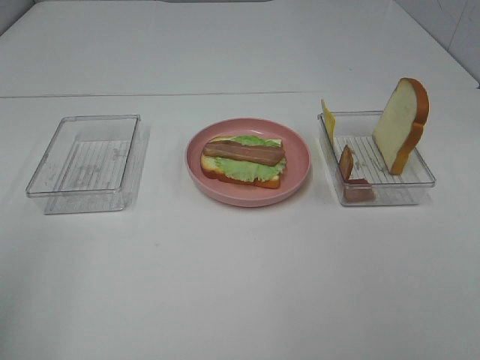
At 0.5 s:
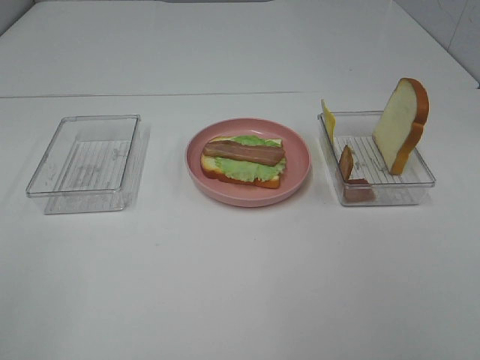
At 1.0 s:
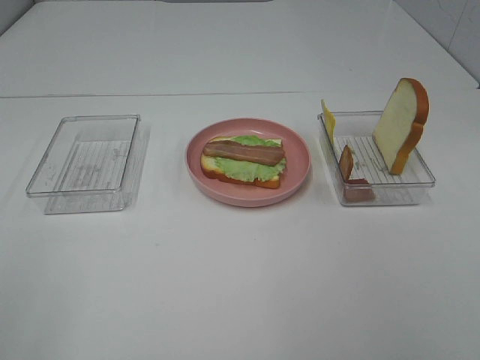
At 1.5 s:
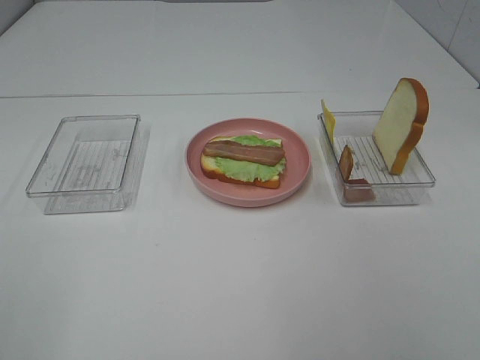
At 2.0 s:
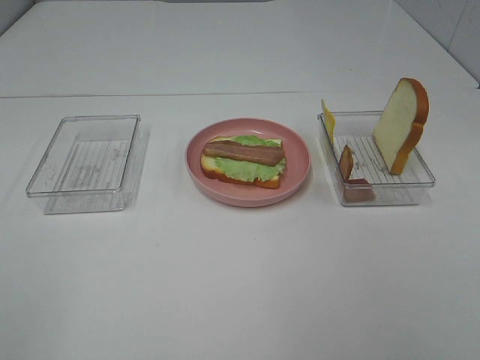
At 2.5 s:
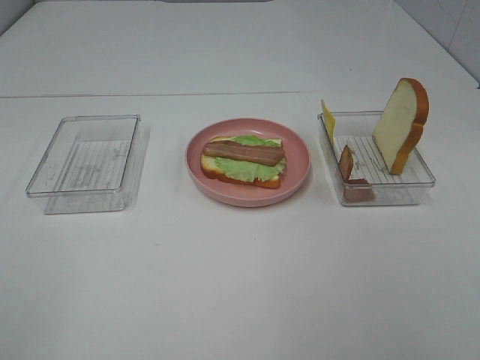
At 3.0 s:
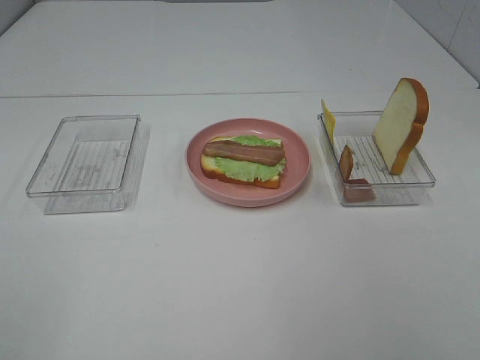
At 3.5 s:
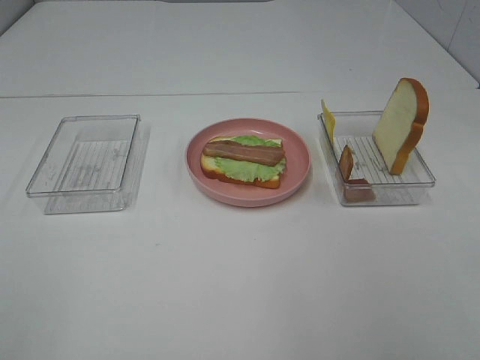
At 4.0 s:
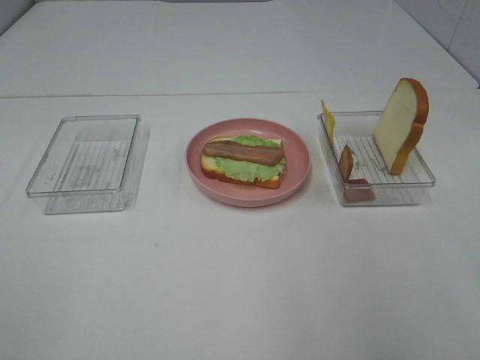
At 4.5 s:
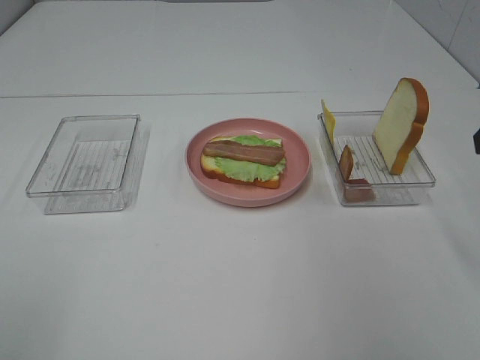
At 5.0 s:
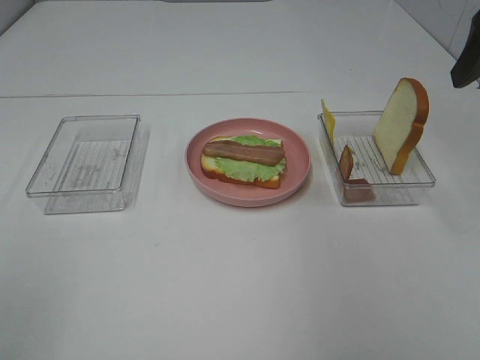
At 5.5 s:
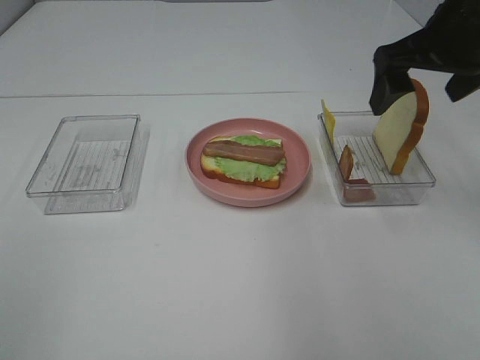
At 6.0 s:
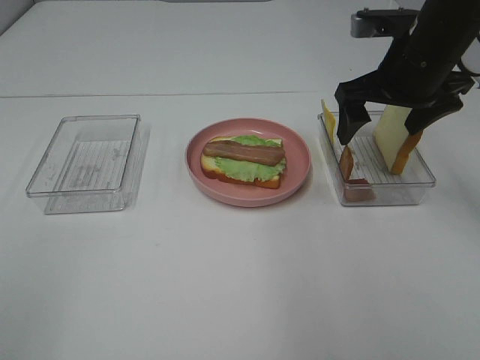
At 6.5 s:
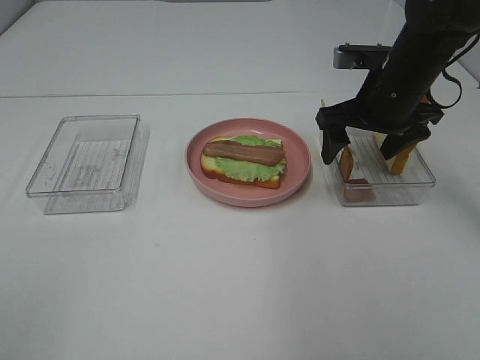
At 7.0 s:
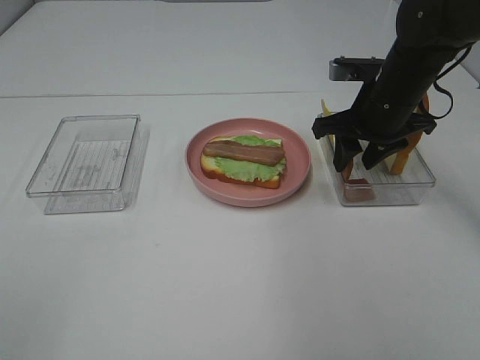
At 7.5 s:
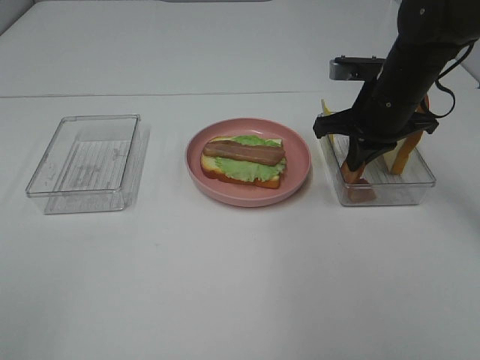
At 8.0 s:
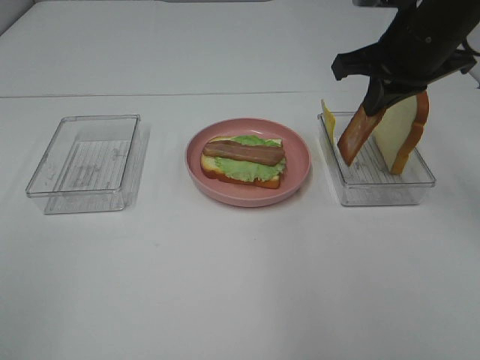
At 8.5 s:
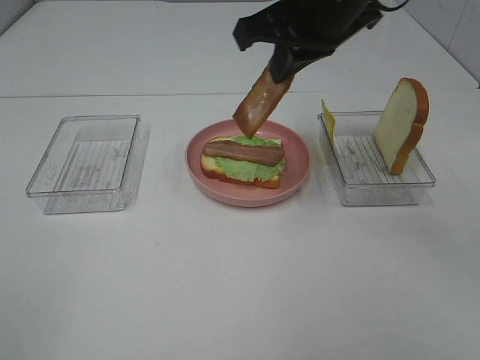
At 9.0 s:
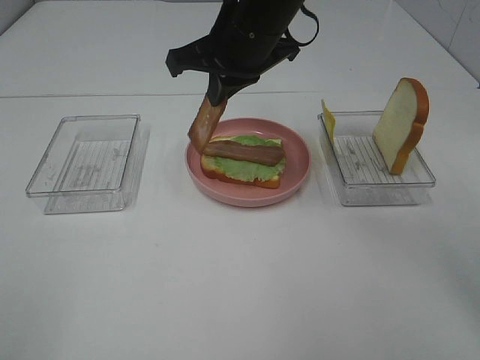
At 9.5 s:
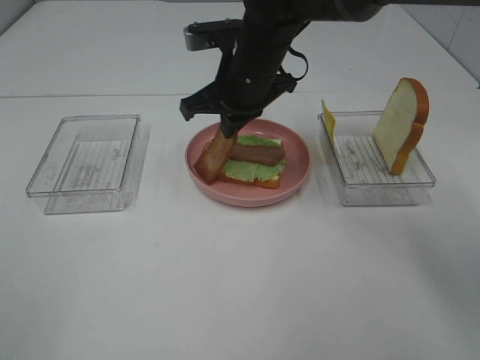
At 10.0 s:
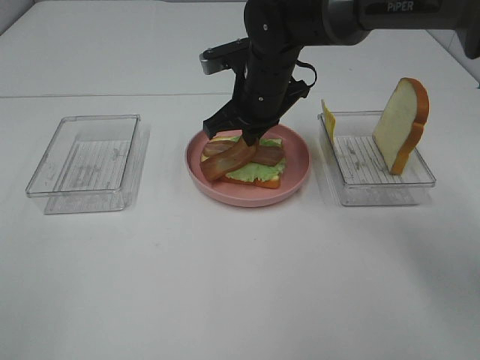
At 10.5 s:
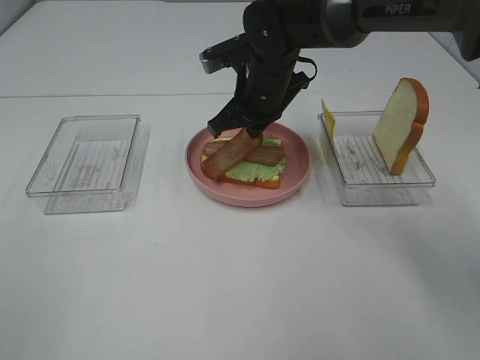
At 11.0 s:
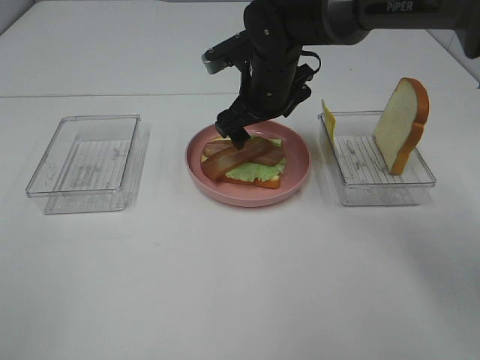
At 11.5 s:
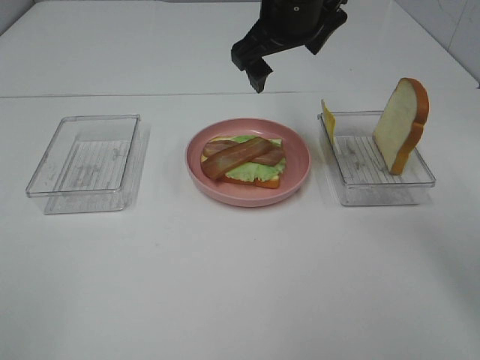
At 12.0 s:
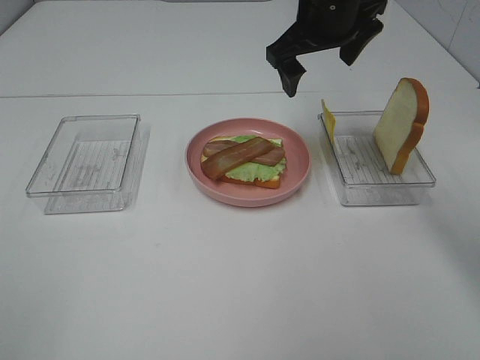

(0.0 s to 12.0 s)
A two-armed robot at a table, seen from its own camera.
Task of the whole recording: Make sandwiches.
Step, 0.0 s - 7.0 s: Right hand:grab the bacon.
Step, 7.5 s - 11.0 s: Right hand:place bacon on bacon.
4.0 s - 6.0 s: The right gripper is displaced forward by about 25 cm.
6.0 s - 8.0 s: The right gripper closes up.
8.0 s - 10.0 s: The right gripper goes approximately 20 cm to the left, downward and forward.
10.0 s - 12.0 s: The right gripper shifts roughly 15 cm upward and to the right, and opens its fingers.

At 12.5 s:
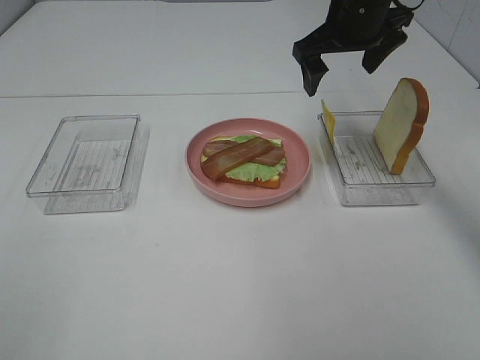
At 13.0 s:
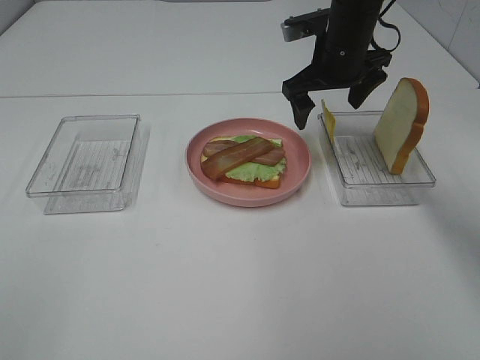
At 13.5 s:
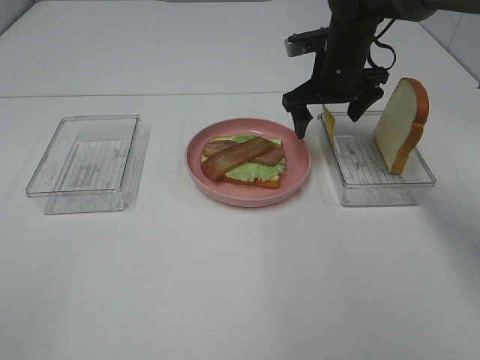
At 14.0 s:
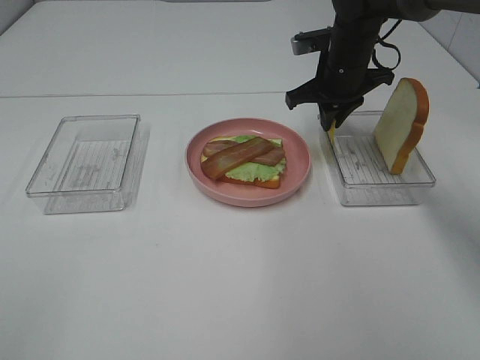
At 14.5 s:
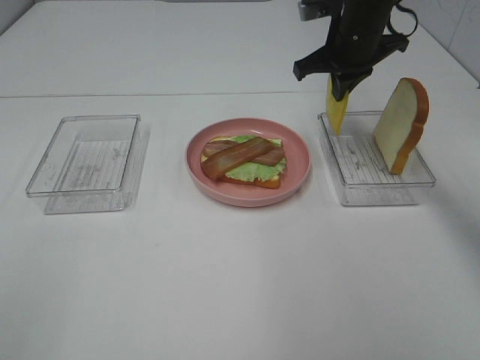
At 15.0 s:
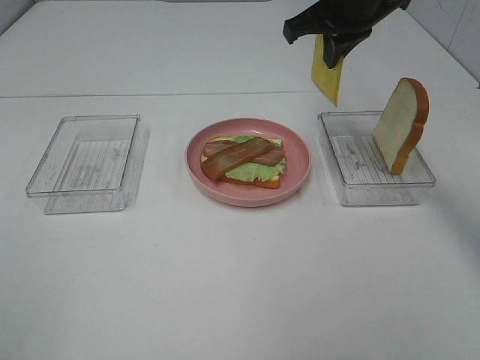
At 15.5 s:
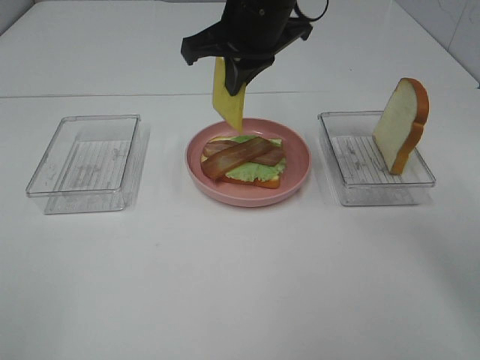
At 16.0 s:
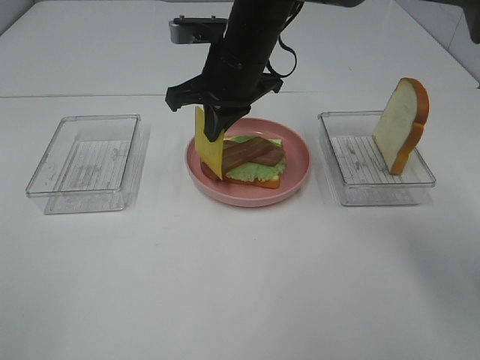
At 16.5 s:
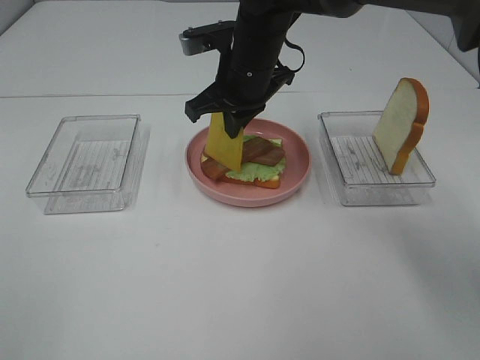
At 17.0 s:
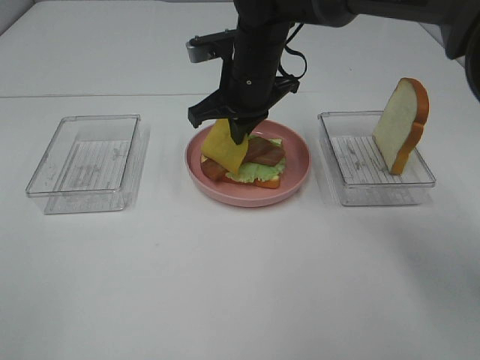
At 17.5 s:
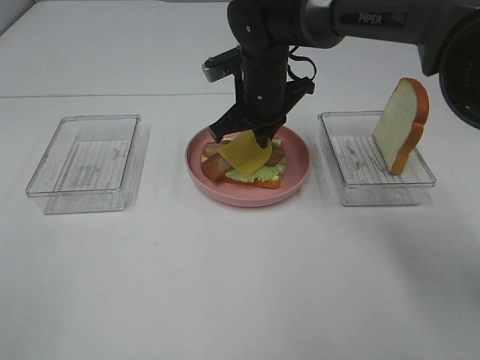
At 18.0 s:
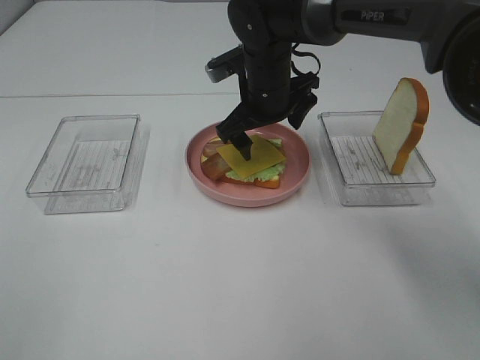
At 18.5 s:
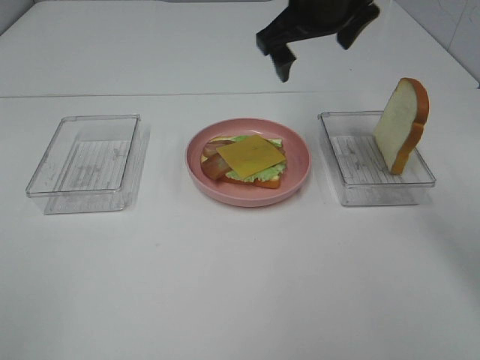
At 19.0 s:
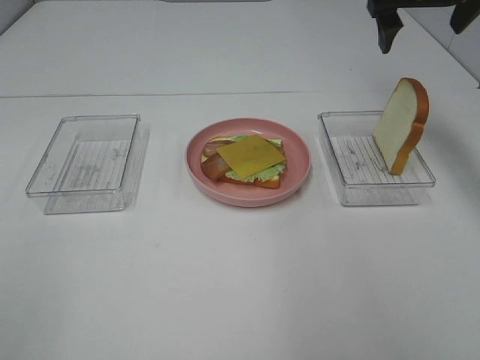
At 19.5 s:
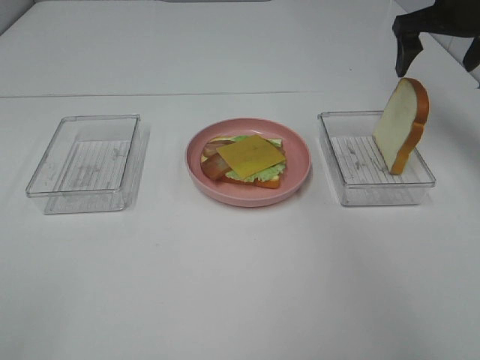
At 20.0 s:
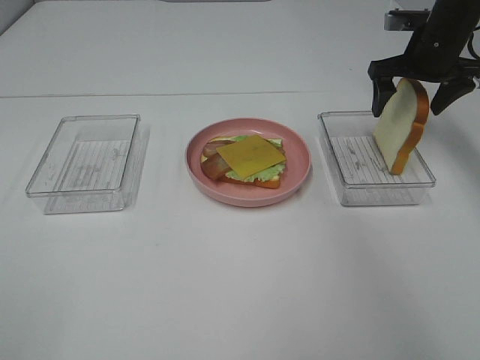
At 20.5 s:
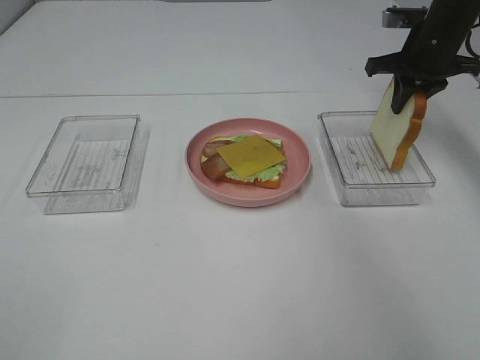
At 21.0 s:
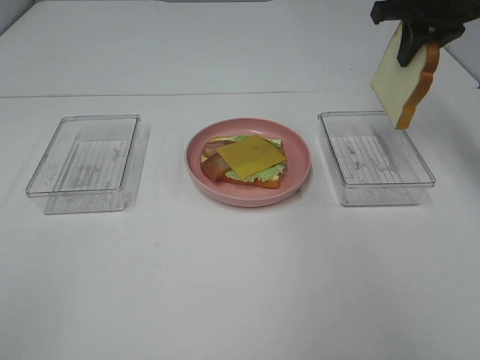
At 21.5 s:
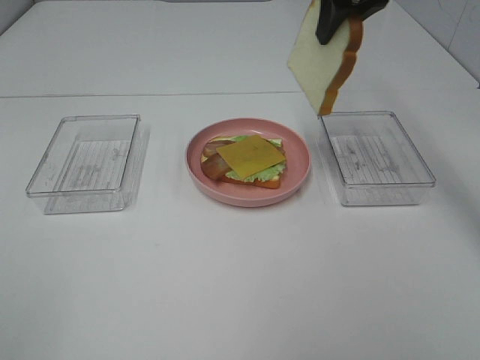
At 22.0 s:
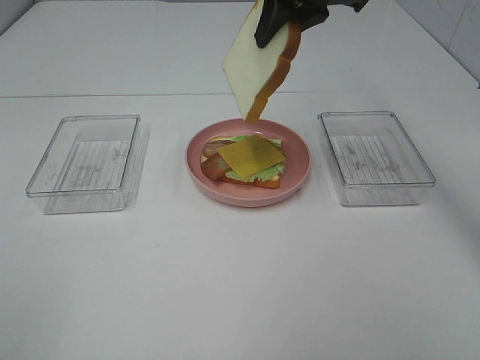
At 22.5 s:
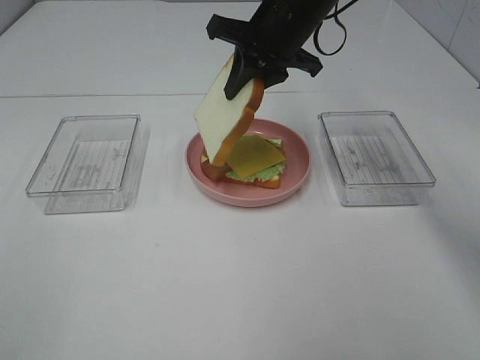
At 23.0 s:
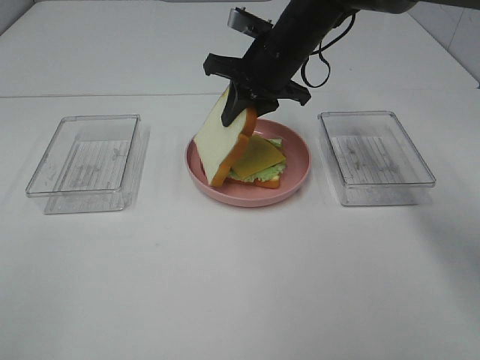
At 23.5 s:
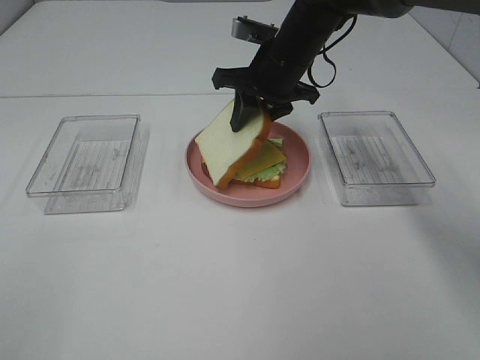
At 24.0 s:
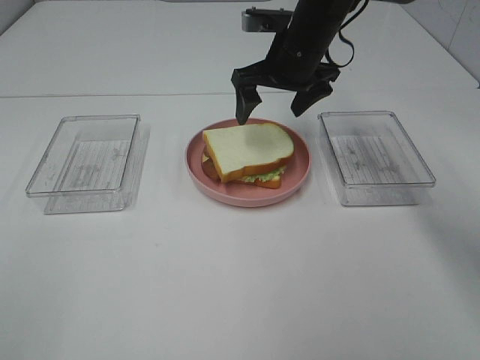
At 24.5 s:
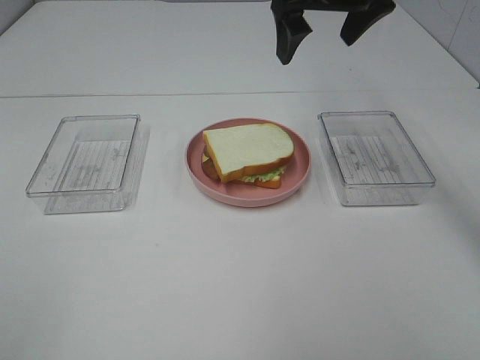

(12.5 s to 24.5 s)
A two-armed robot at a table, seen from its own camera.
Task of the whole recording: Make sandwiches.
Step, 14.5 s - 18.0 s: Right hand:place the cheese slice on top of the bacon.
Step, 18.5 s - 20.0 s: Right hand:grab the bread slice.
Step, 20.5 s - 24.0 s: Right hand:place the bread slice on the cheese slice.
12.5 s - 14.5 s: The right gripper reaches approximately 10 cm downward, then returns, and closes its fingers.
14.5 s - 16.5 s: The right gripper is displaced to the left by about 15 cm.
16.5 s - 18.5 s: The right gripper goes about 10 cm upward and to the right, and opens up.
18.5 s - 20.5 s: The right gripper travels to the right and downward by roughly 20 cm, and closes its fingers.
20.5 s - 22.5 s: The right gripper travels to the left by approximately 20 cm.
22.5 s - 24.5 s: The right gripper is displaced upward and to the right by some 10 cm, and opens its fingers.

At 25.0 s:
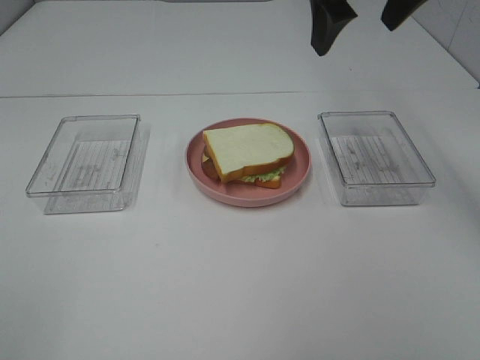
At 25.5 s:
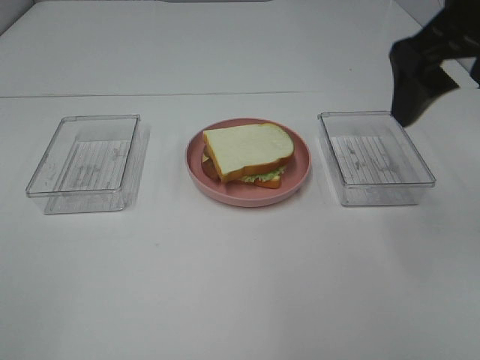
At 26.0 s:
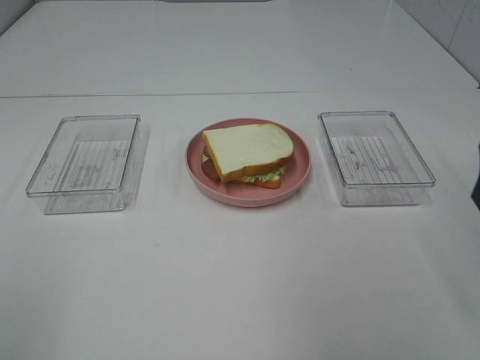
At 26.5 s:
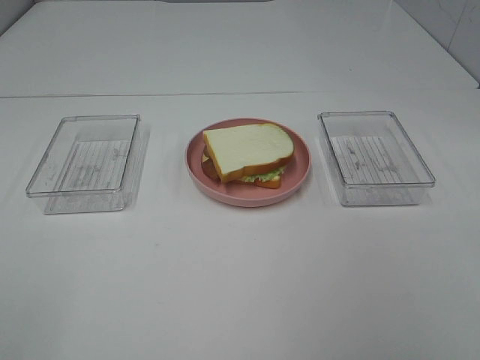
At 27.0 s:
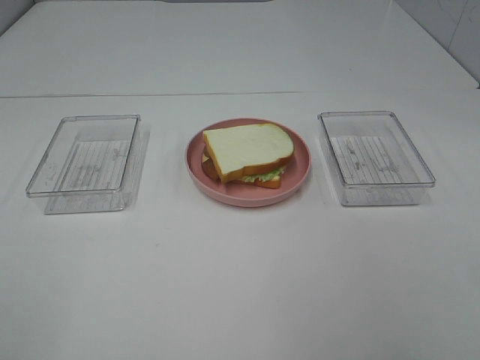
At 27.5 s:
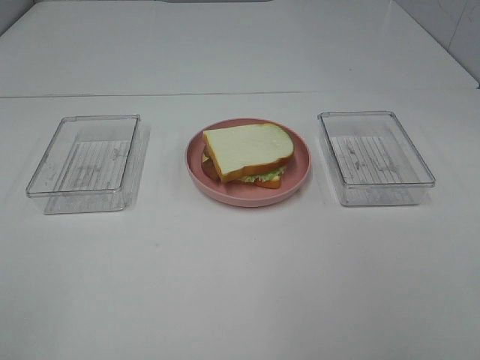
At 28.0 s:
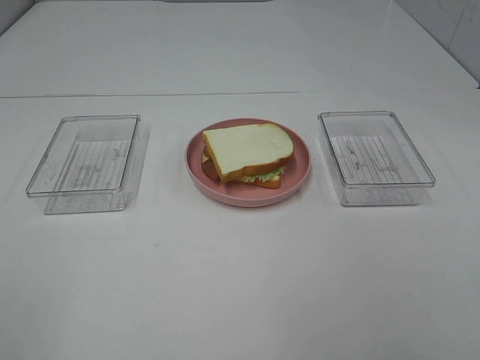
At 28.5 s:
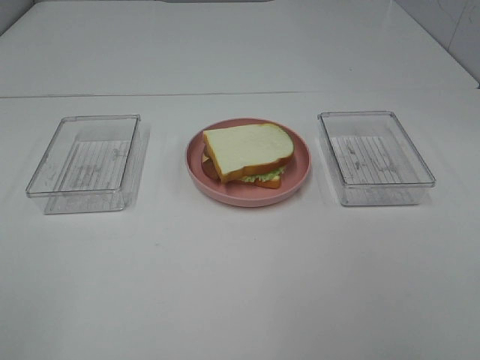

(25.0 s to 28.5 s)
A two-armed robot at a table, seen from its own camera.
Task of the whole recording: Make sandwiches.
25.0 s - 27.0 s: The right gripper goes some 35 cm backward and to the right.
